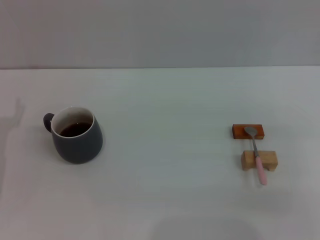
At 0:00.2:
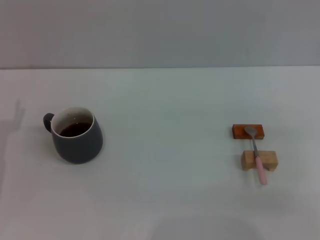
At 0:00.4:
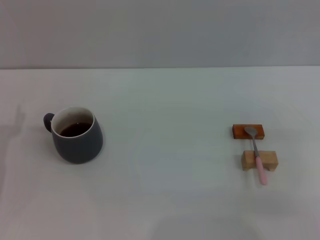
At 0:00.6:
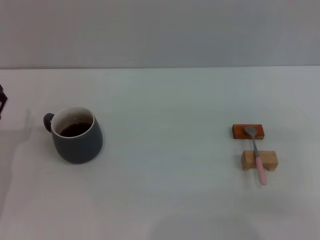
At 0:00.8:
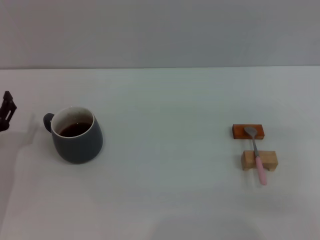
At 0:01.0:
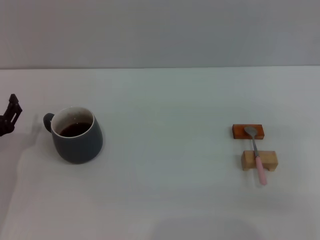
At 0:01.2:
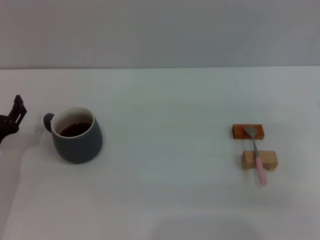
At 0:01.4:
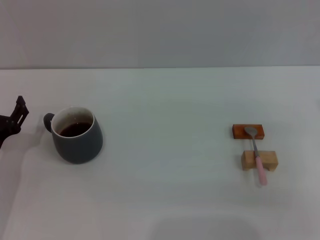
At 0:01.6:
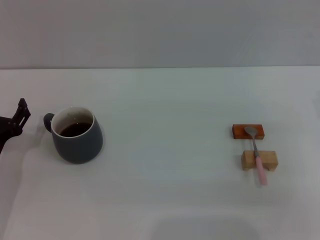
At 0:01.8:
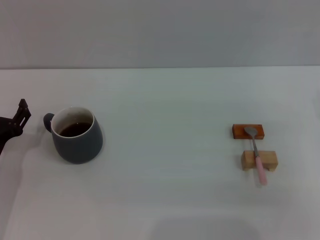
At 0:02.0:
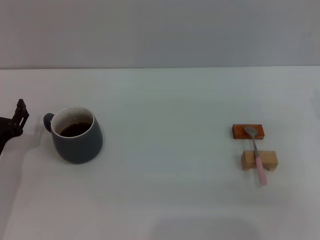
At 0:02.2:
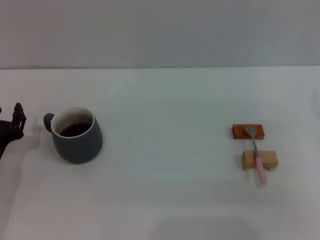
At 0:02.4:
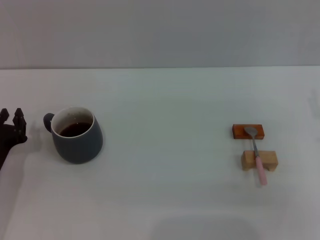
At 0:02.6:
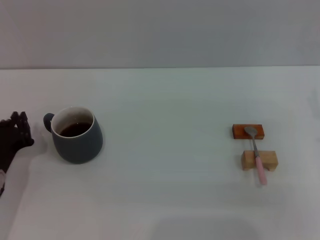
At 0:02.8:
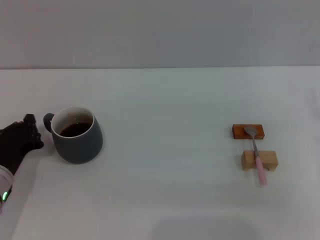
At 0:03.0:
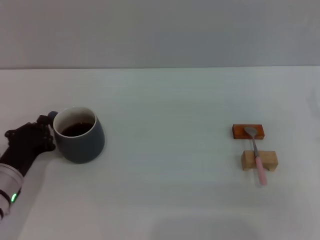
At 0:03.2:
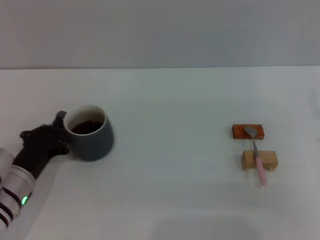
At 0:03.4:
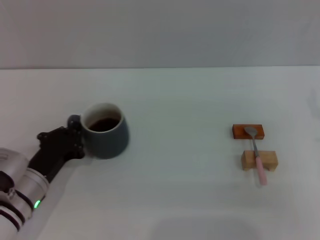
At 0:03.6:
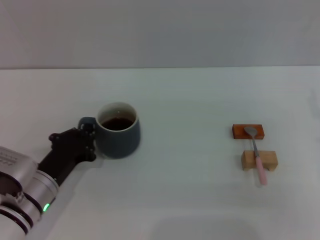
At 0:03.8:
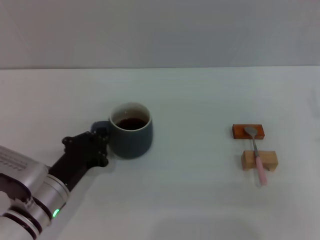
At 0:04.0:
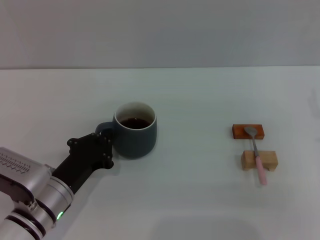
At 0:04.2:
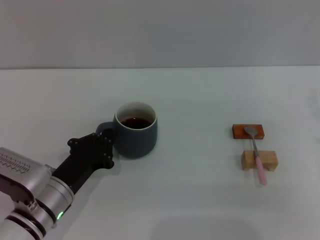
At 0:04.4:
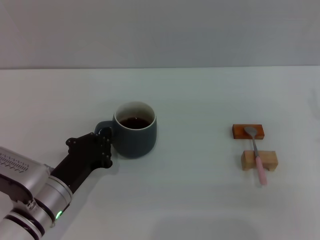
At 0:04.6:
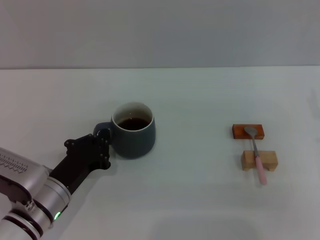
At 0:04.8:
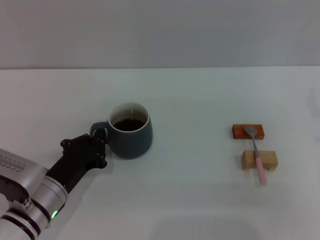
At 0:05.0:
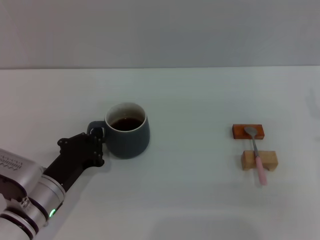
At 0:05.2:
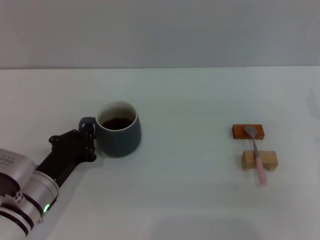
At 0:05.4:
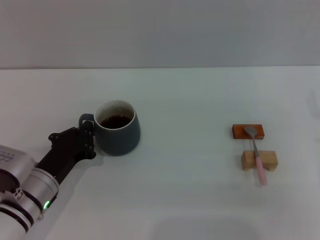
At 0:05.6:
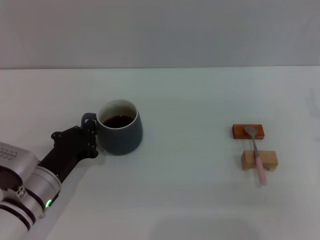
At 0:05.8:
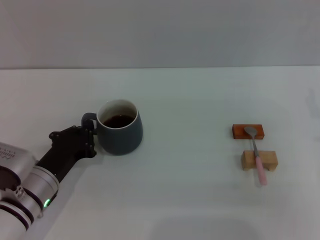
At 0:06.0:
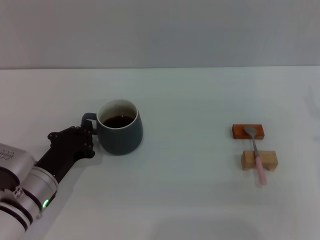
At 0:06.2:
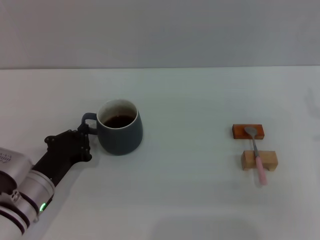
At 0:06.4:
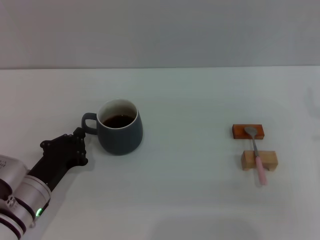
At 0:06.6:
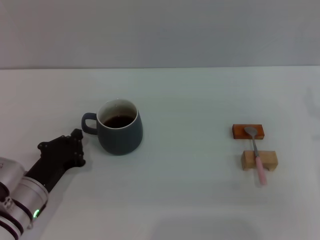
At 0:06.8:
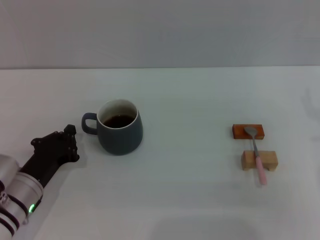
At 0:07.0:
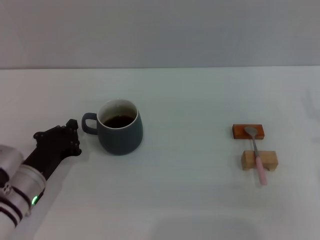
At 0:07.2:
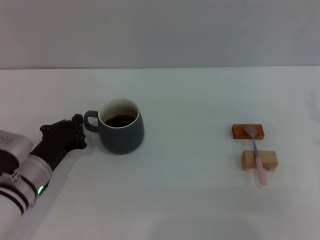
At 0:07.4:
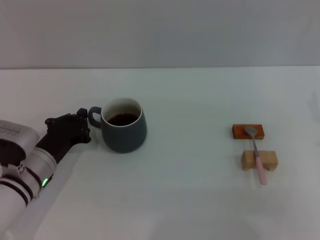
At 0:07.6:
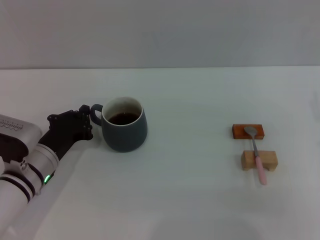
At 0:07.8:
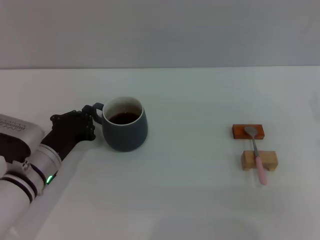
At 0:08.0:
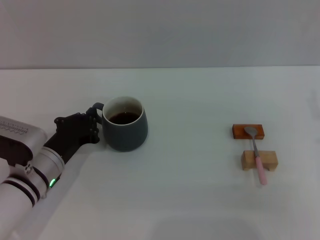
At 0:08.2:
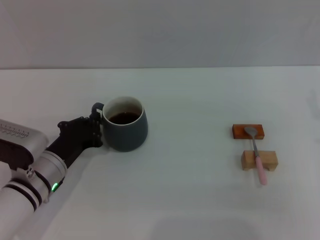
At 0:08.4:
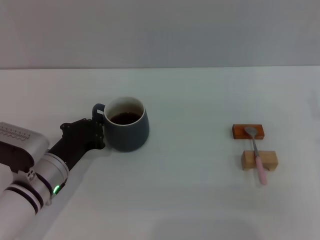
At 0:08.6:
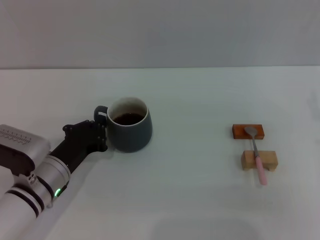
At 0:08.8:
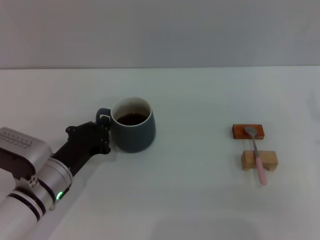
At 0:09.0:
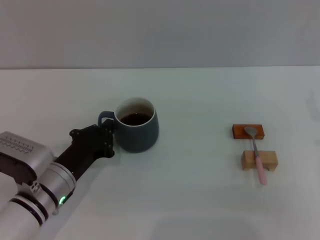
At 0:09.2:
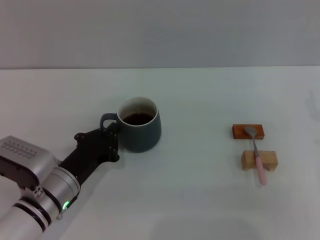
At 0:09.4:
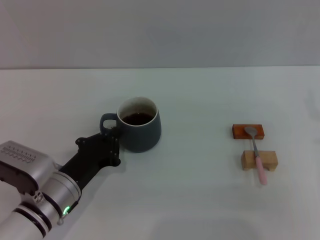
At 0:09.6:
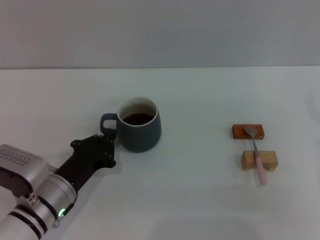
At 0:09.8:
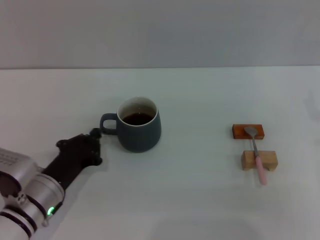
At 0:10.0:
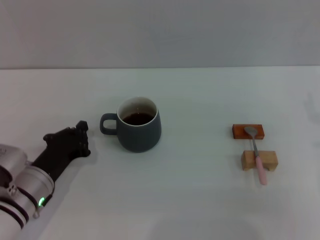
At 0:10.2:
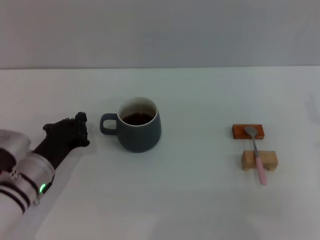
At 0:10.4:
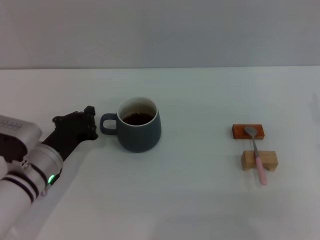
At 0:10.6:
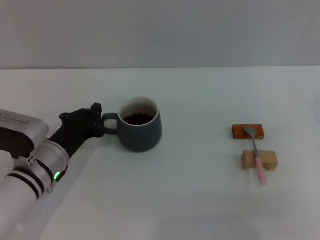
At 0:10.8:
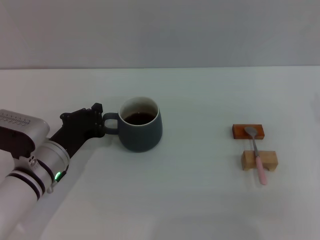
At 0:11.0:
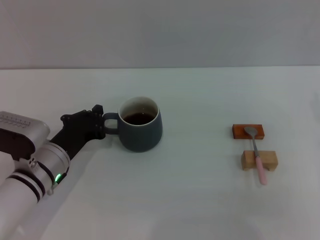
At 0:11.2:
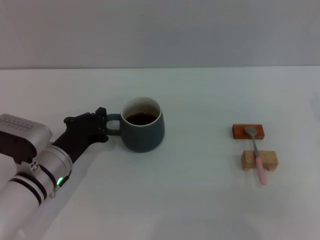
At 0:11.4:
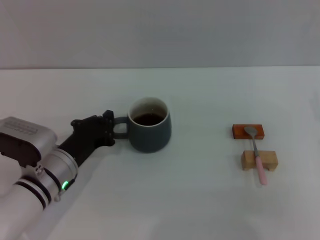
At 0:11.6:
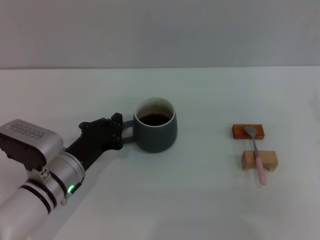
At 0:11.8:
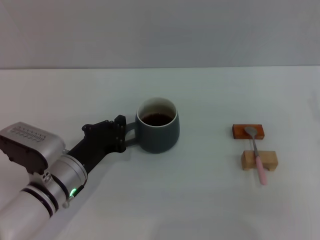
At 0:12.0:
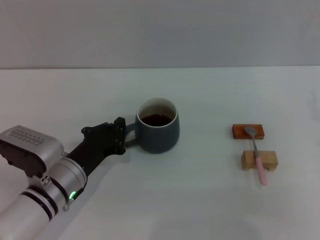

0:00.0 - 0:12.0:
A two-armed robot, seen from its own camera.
Task of the whole recording: Move the grey cup to the center, lift the pink spoon, stir it three times in the cup, and put the spoon into the cup.
0:00.0 - 0:01.6: The left gripper moves approximately 5 cm.
0:01.6 - 0:03.0: The left gripper closes up.
0:03.0 - 0:04.4: The left gripper is displaced to the right by some 5 cm.
0:04.4 - 0:06.0: There are only small adjustments of the grippers.
0:06.0 - 0:12.0: The grippers make only small movements.

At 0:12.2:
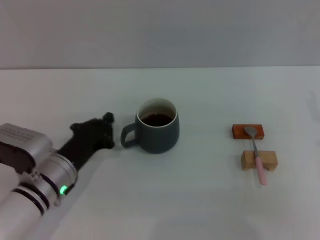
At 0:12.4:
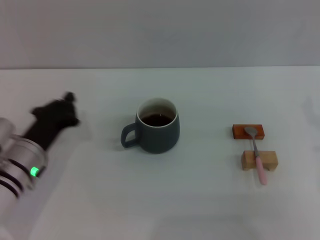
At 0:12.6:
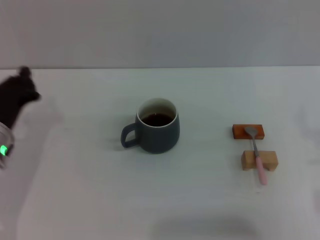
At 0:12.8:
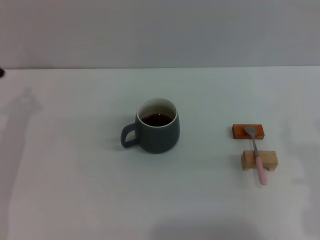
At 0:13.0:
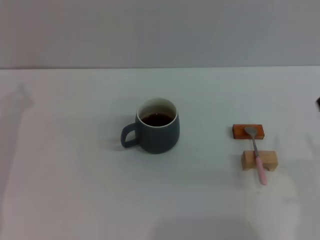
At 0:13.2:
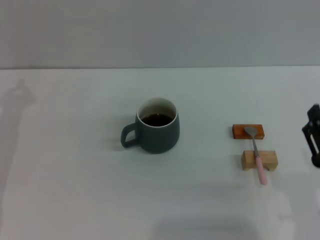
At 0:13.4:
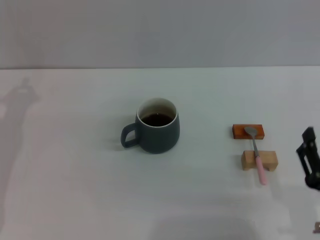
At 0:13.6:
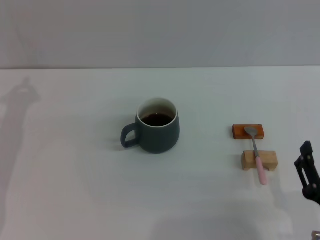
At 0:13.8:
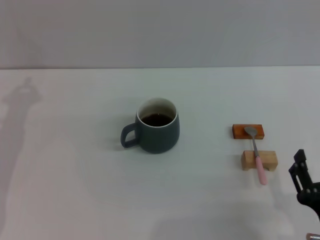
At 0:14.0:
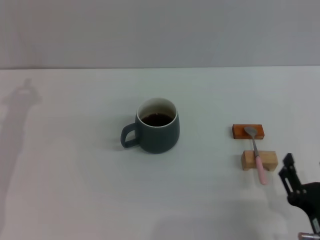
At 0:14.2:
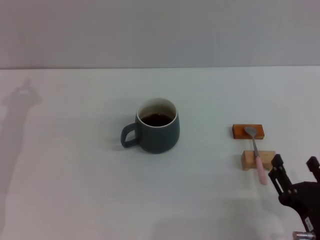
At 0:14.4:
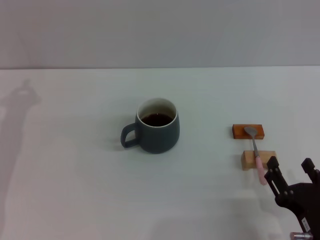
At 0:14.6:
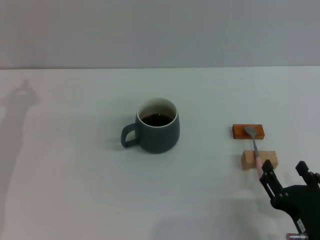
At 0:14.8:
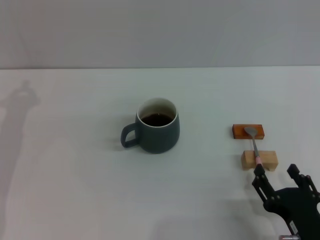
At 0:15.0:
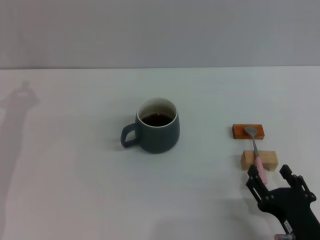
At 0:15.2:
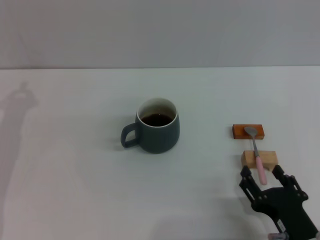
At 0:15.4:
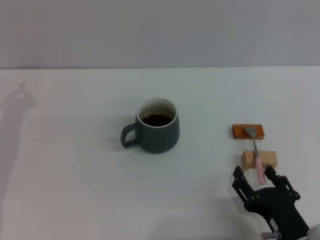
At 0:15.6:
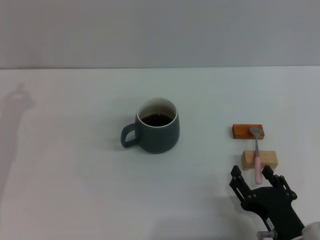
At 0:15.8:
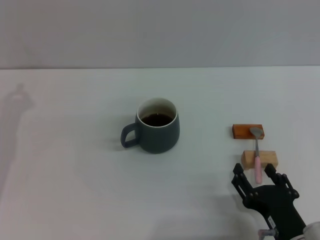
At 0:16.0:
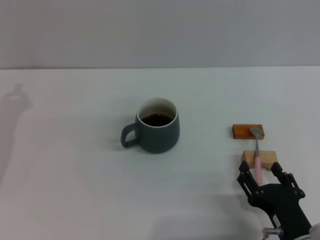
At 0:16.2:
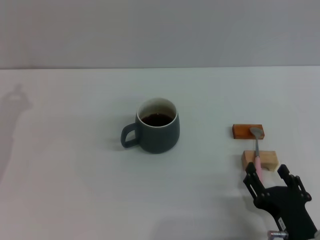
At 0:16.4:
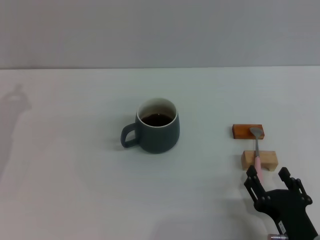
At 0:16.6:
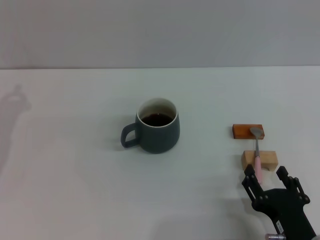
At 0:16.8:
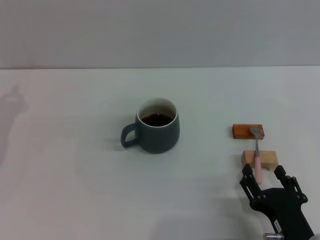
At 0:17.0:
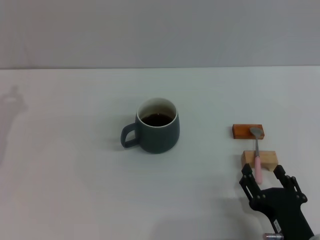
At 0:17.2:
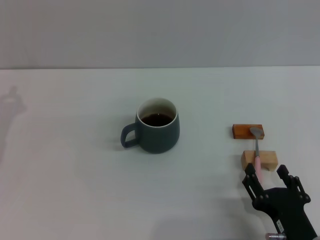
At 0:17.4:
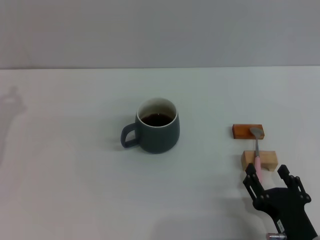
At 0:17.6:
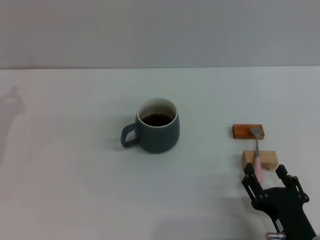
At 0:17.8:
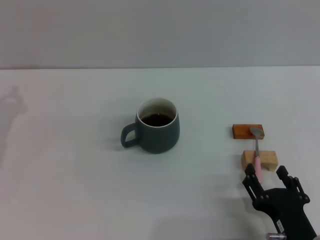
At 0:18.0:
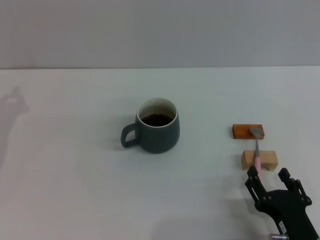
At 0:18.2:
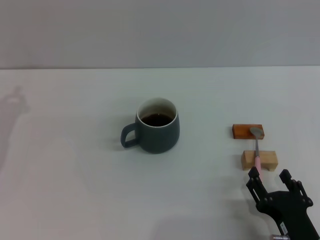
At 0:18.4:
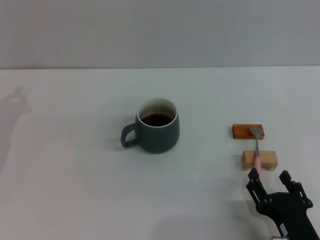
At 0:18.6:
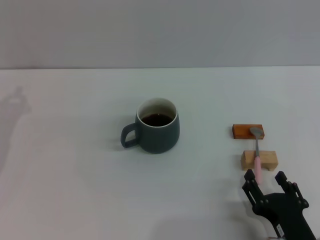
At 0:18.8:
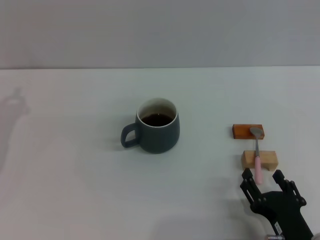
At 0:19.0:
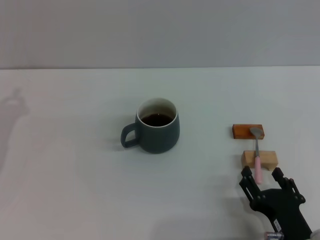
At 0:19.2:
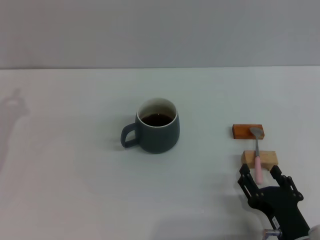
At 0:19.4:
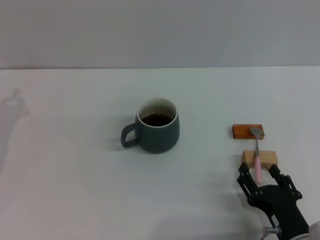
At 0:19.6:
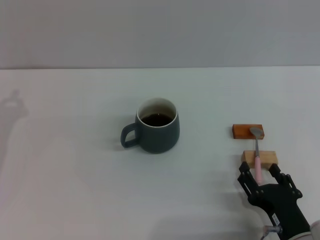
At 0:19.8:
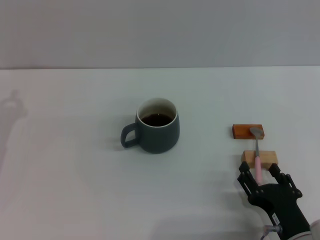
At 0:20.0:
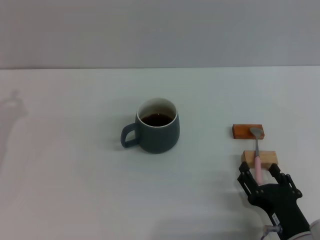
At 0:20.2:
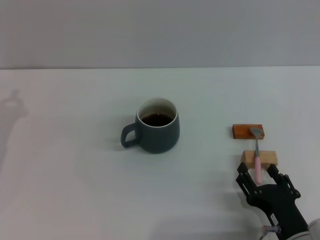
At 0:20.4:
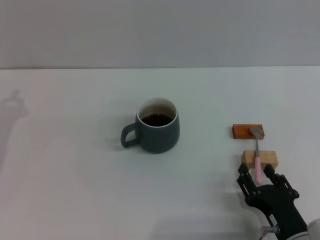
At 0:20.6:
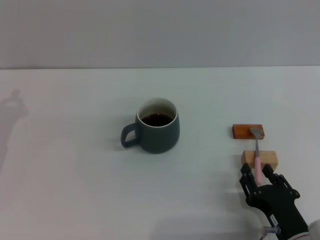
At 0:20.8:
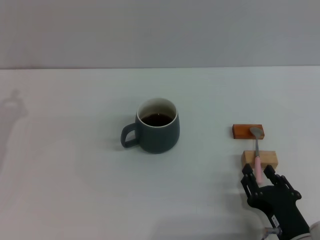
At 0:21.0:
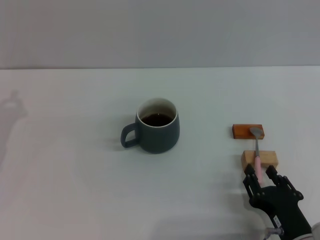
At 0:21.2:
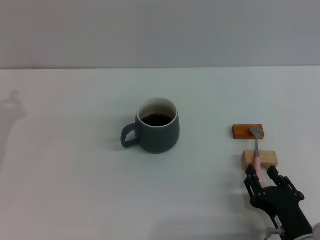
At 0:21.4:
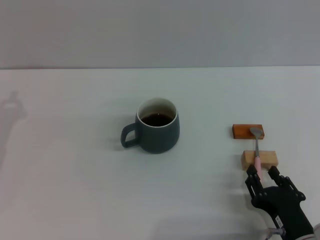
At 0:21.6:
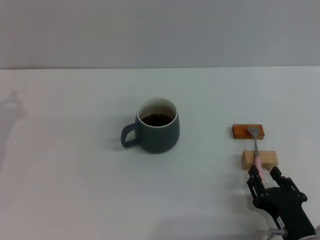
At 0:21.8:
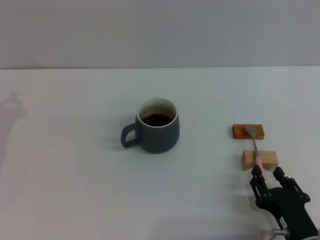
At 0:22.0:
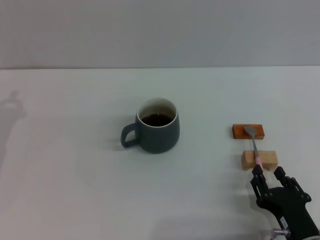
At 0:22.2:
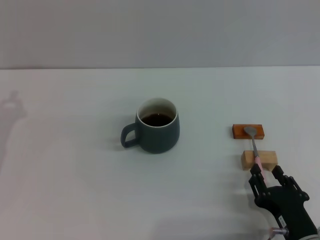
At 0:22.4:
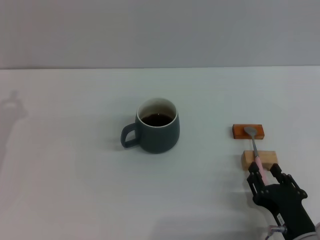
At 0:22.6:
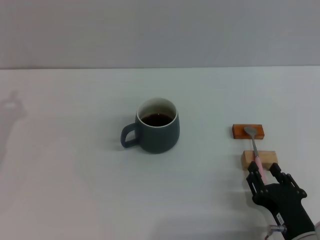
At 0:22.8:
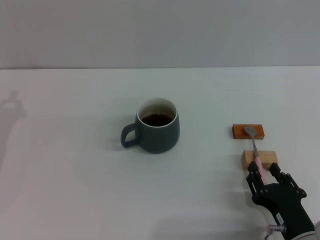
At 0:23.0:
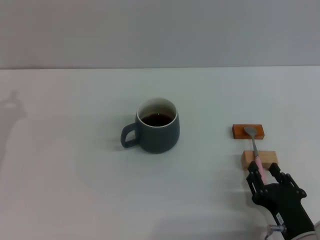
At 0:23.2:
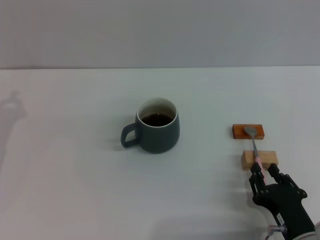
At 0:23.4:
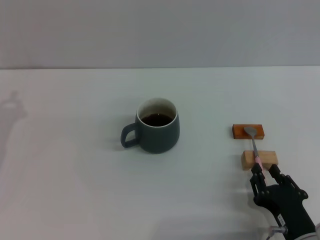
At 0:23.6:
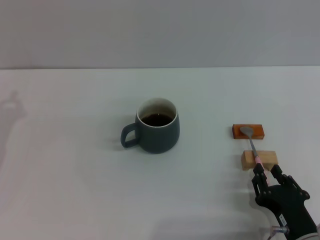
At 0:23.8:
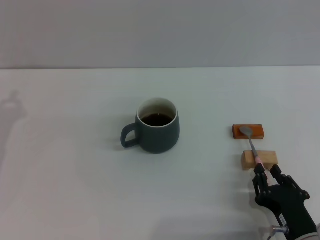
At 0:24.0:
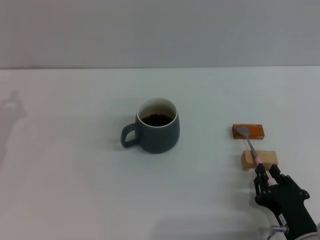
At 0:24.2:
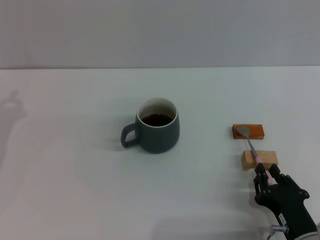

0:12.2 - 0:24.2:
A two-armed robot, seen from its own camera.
Task of the whole recording: Move the grey cup to the center, lift the pink spoon, stir it three times in the cup, and put the spoon into the cup.
0:12.2 - 0:13.8: The right gripper heads backward, downward and to the left, covering roughly 20 cm, while the left gripper is displaced to the left, upward and forward by approximately 15 cm.
0:13.8 - 0:15.2: The grippers move only a little.
0:15.2 - 0:16.6: The grippers move only a little.
0:16.6 - 0:18.2: Neither gripper changes place.
0:18.2 - 0:19.8: The grippers make only small movements.
0:19.8 - 0:24.2: Both grippers stay about where they are.
